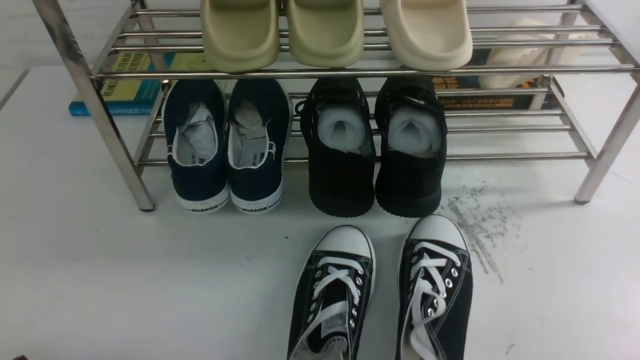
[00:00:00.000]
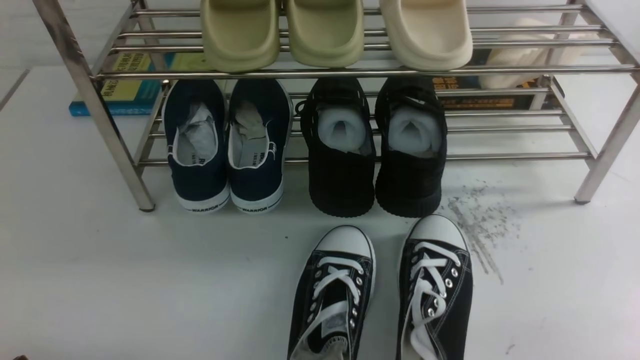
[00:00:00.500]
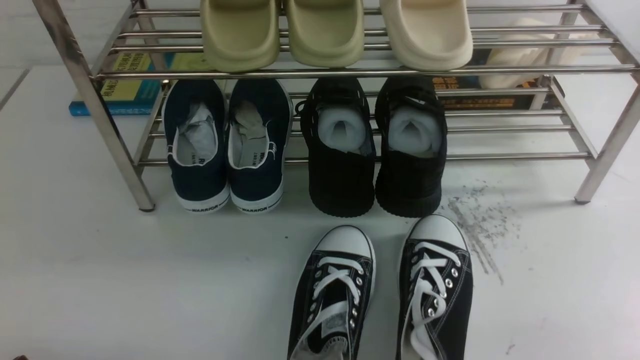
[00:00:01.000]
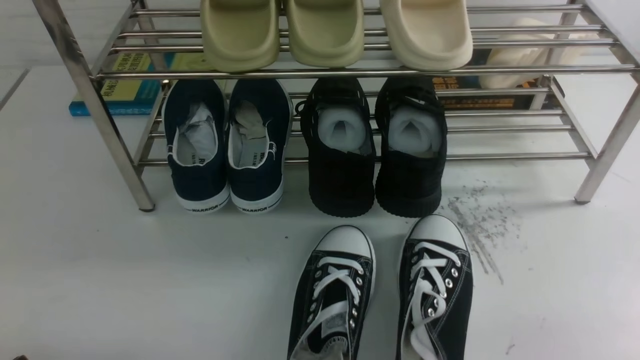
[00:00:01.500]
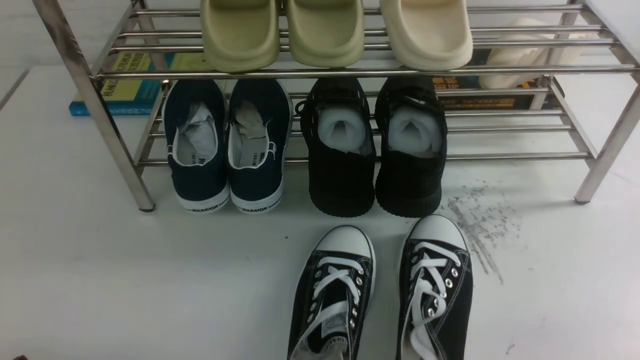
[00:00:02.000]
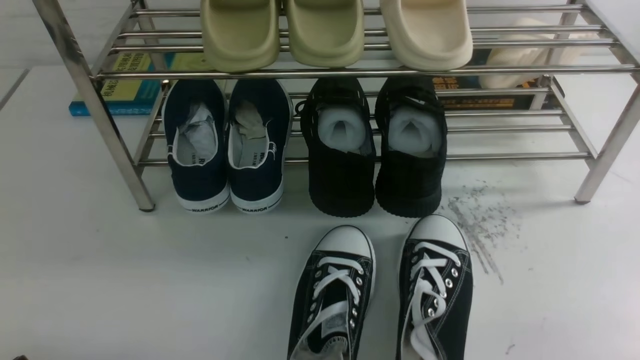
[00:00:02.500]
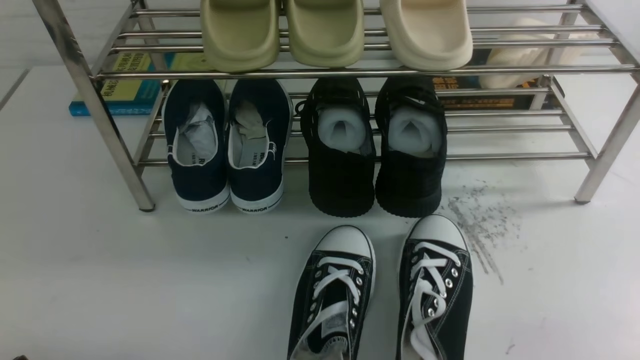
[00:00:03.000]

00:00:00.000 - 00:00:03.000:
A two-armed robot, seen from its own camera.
00:00:01.500 - 00:00:03.000: Both grippers stay about where they are.
